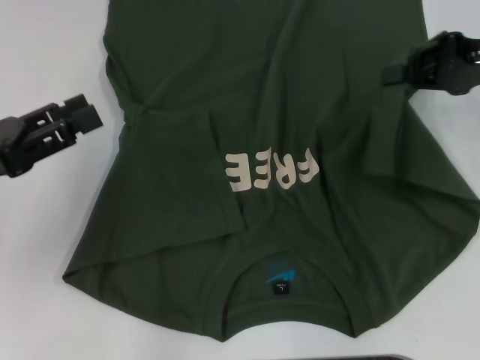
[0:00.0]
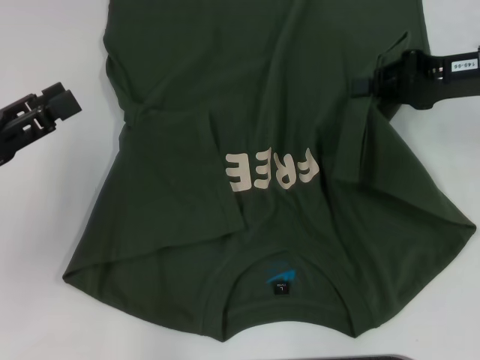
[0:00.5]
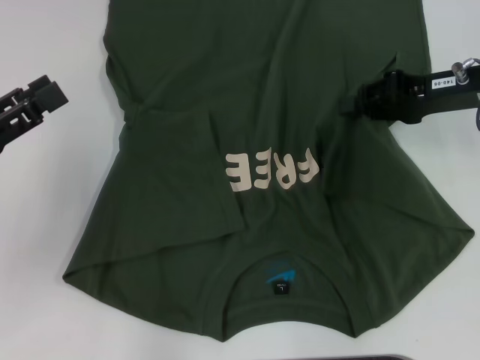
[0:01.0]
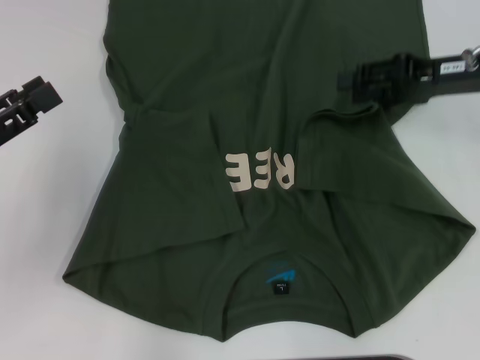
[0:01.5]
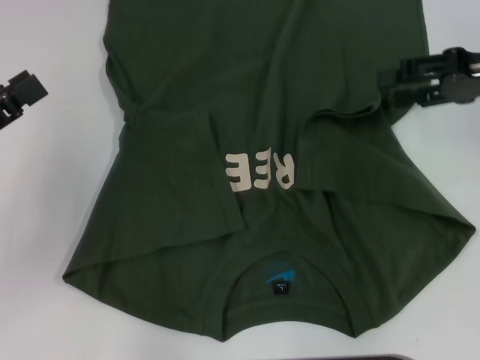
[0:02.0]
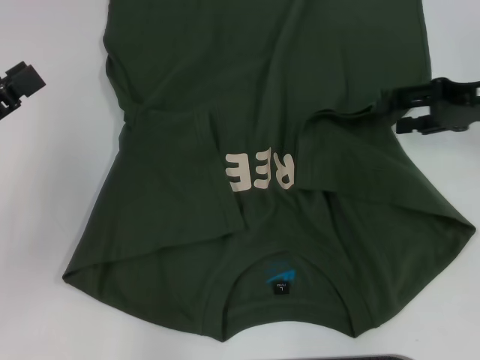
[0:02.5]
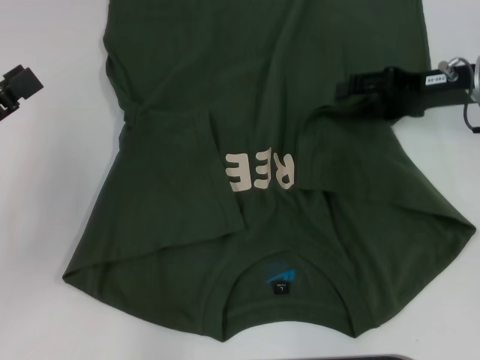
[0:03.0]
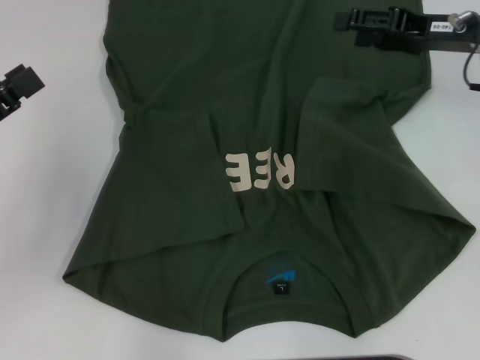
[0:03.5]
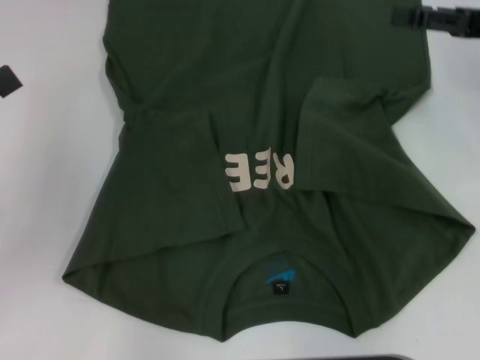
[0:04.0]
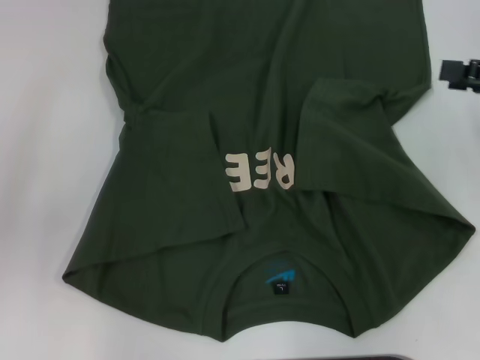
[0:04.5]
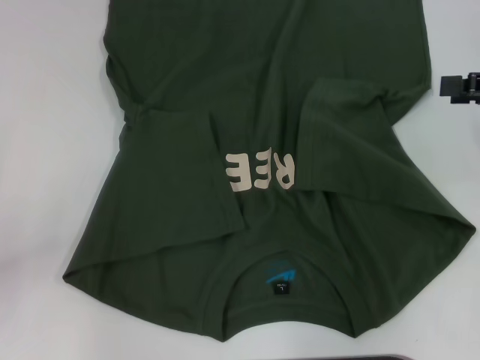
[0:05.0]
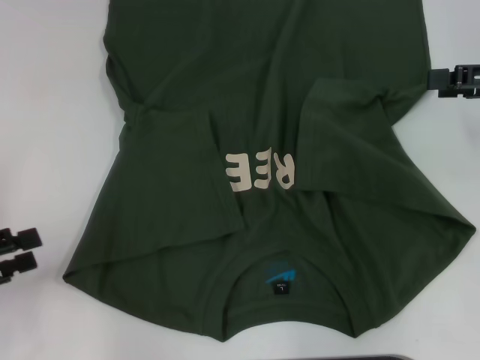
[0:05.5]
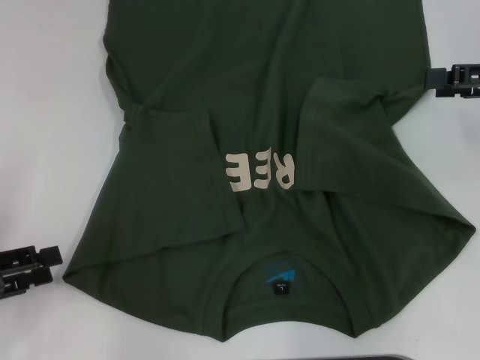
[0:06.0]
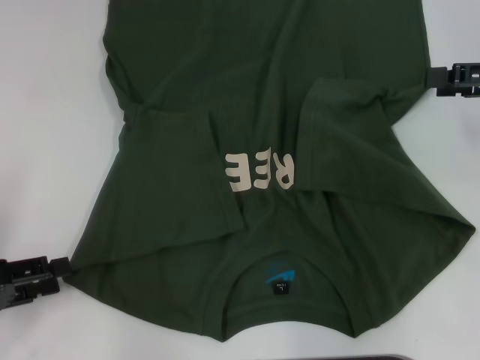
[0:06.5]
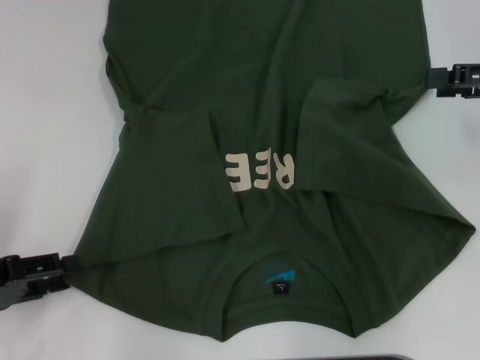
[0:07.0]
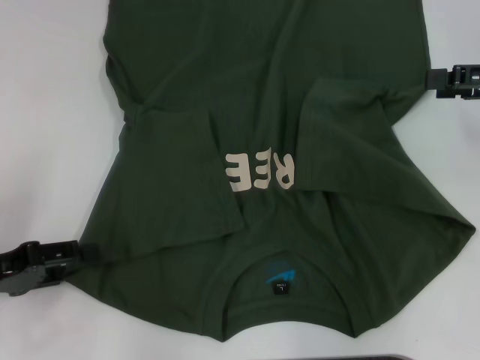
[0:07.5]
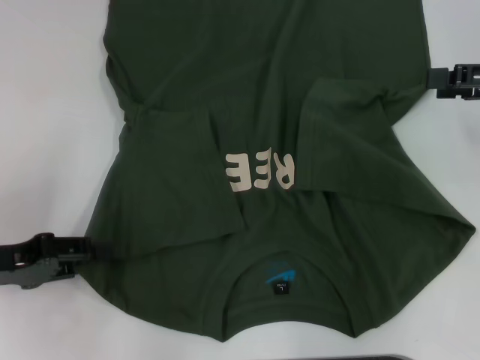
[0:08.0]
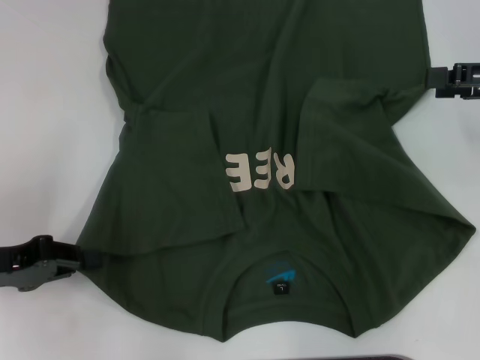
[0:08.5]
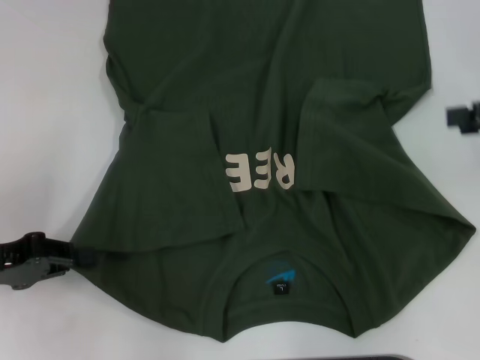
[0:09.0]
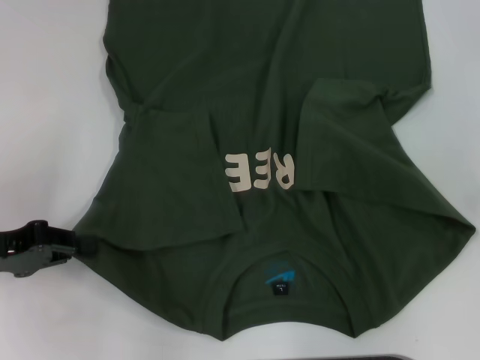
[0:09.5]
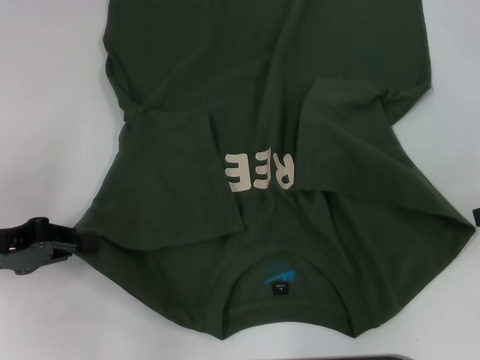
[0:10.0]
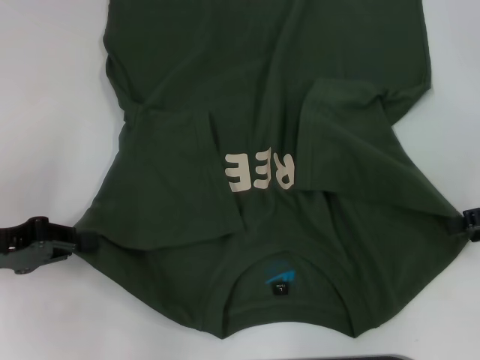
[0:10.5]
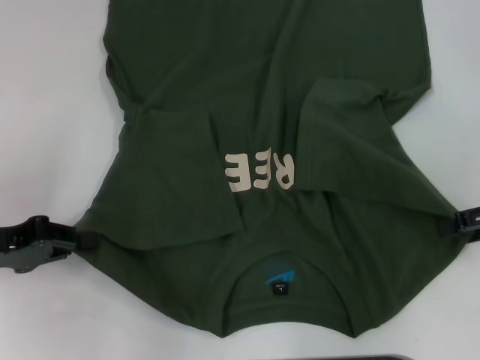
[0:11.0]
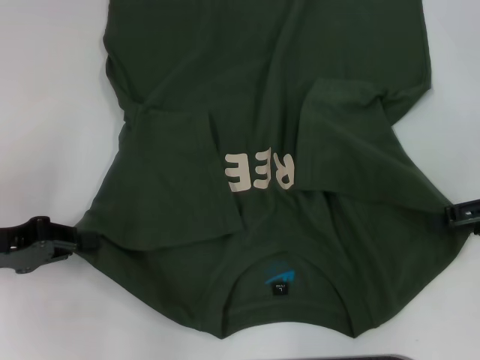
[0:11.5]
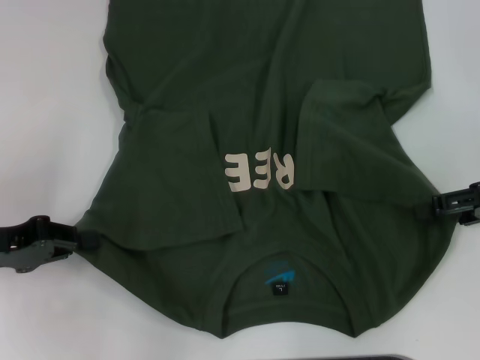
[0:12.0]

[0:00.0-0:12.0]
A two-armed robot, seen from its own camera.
Step, 0:00.0 to 0:03.5: Fold the bottom right sleeve with your right hand.
Step, 0:04.0 to 0:10.5: Grab the bottom left corner with your left hand.
0:00.0 to 0:02.0: The right gripper opens.
0:04.0 to 0:06.0: The left gripper travels downward by roughly 5 cm.
0:06.0 to 0:08.0: The left gripper changes place by about 5 cm.
0:08.0 to 0:10.0: The left gripper closes; the right gripper changes place by approximately 5 cm.
0:10.0 to 0:12.0: The right gripper ends up approximately 5 cm from where it was.

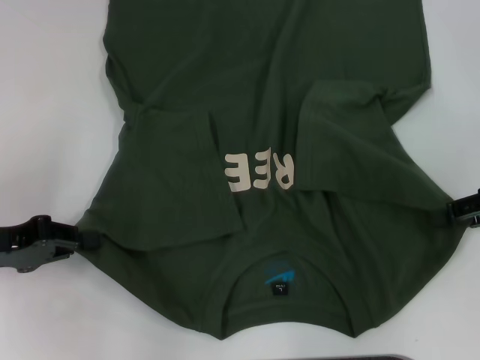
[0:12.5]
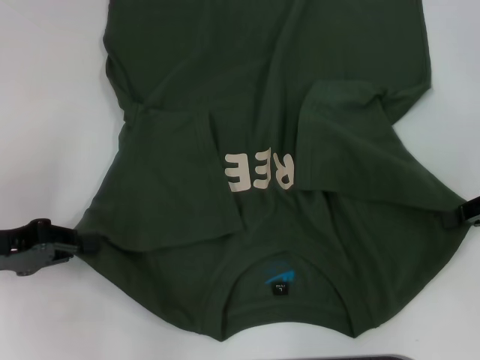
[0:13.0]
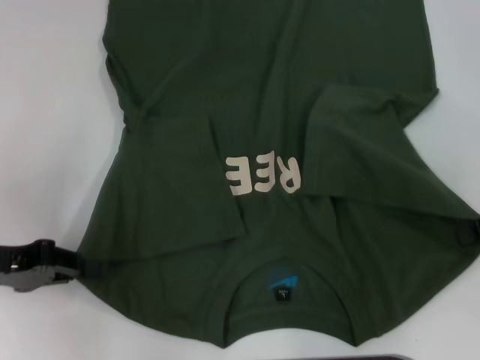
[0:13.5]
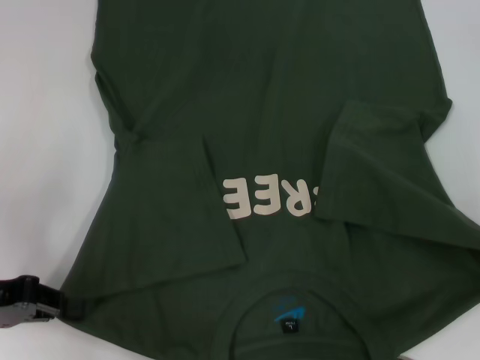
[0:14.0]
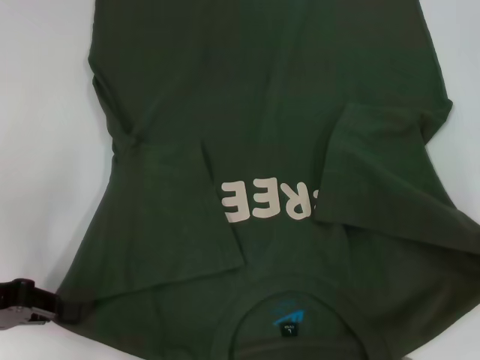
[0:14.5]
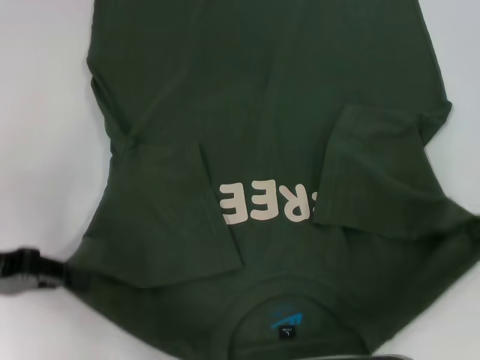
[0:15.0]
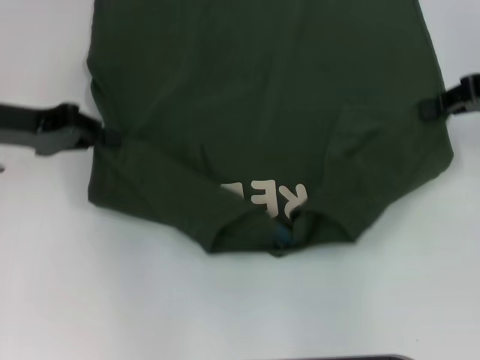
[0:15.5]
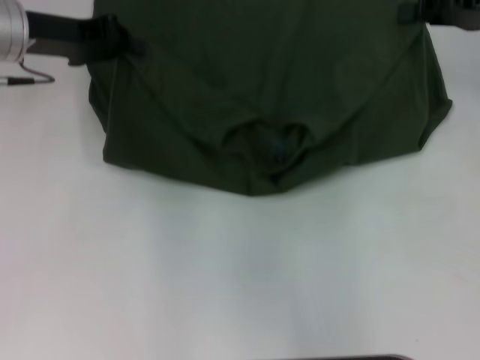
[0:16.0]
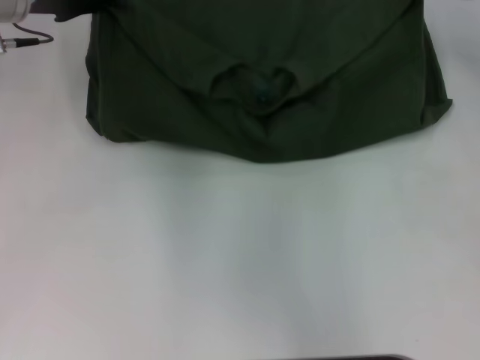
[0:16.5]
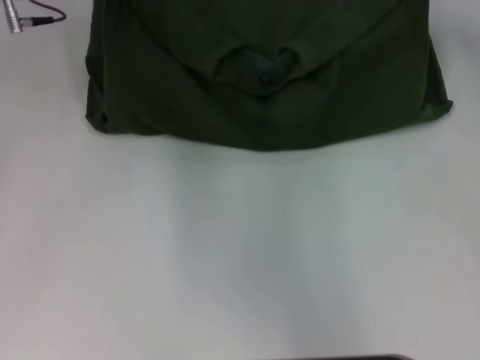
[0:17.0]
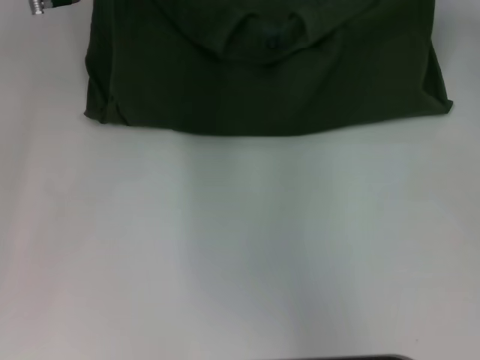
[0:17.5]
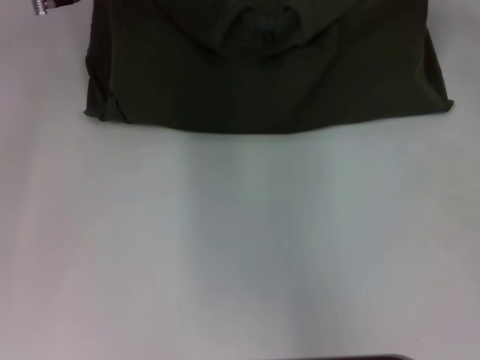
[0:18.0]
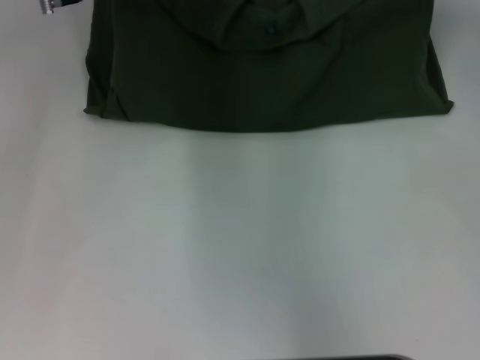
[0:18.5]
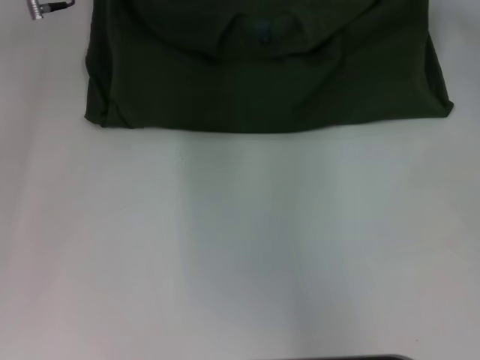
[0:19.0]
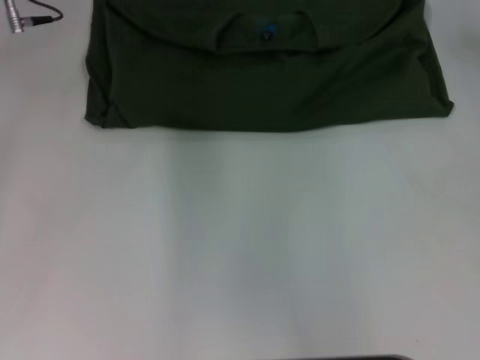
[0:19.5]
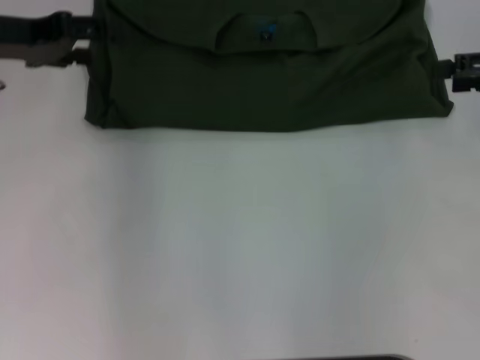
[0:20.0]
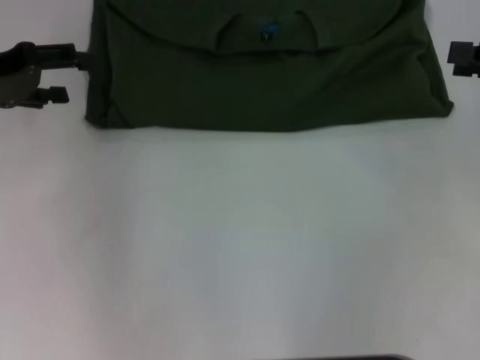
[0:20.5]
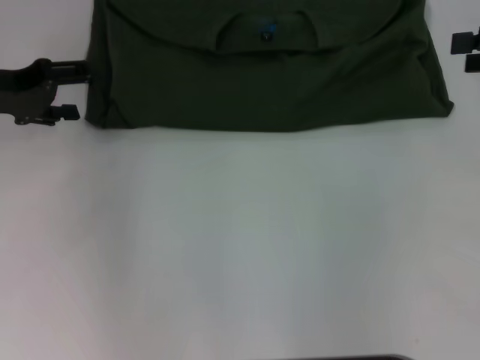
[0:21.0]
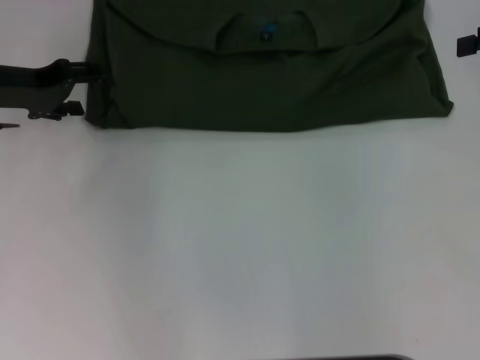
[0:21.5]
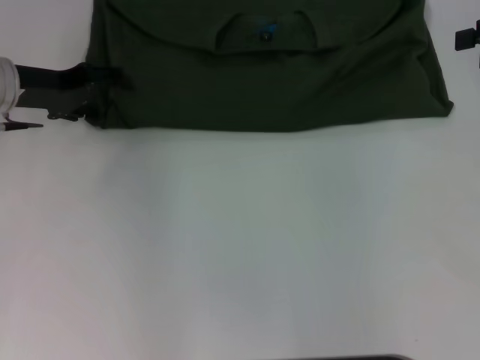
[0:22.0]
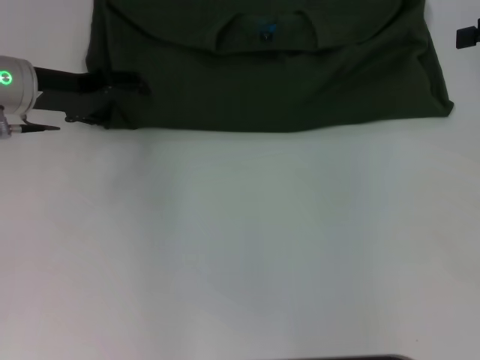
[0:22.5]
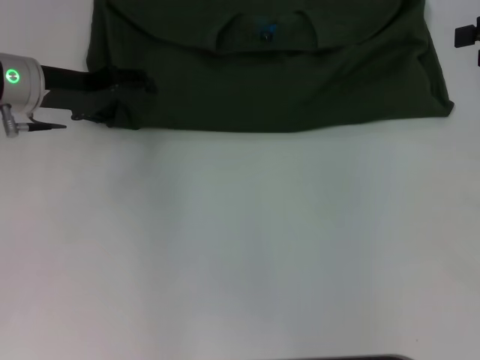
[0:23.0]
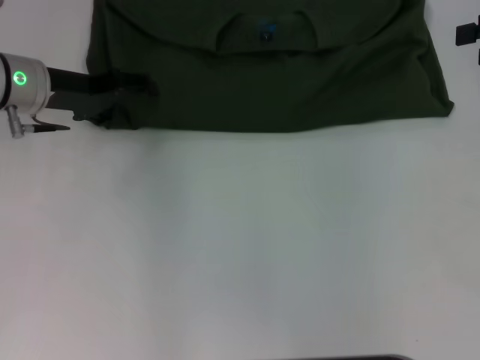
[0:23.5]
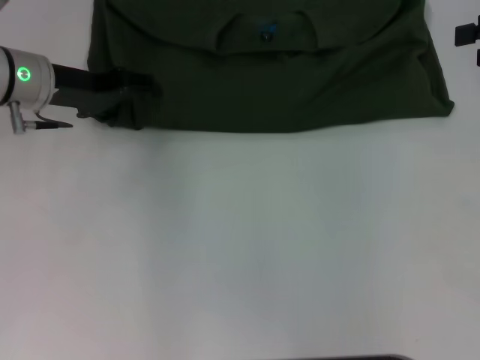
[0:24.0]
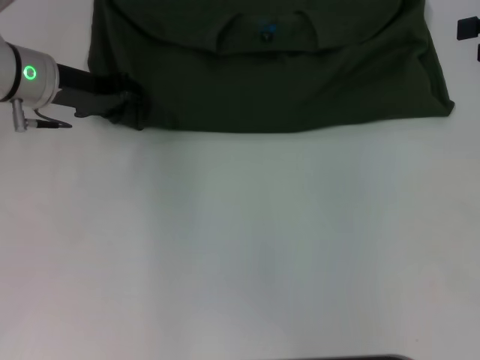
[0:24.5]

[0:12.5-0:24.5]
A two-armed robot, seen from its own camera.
Step, 0:13.5 to 0:19.5: Fold the clothes with your left hand.
Step, 0:13.5 to 0:19.5: Fold the clothes with your right hand.
0:12.5 to 0:14.5: The right gripper closes.
0:14.5 to 0:16.5: The left gripper heads forward and to the right, covering some 25 cm, while the right gripper goes some 15 cm forward, to the left and upward.
0:16.5 to 0:18.5: The left gripper heads to the right, covering some 5 cm.
0:18.5 to 0:20.5: The left gripper heads to the left and backward, covering approximately 15 cm, and opens. The right gripper travels backward and to the right by about 15 cm, and opens.
0:20.5 to 0:22.5: The right gripper shifts approximately 5 cm forward. Meanwhile the left gripper shifts approximately 5 cm to the right.
0:22.5 to 0:24.5: The grippers make only small movements.

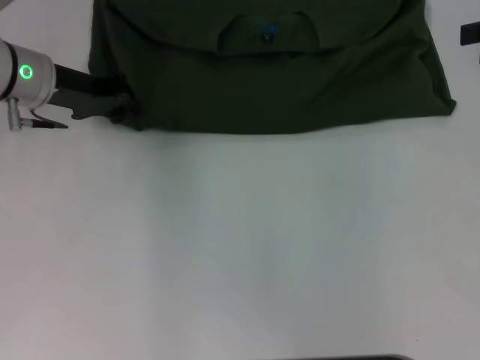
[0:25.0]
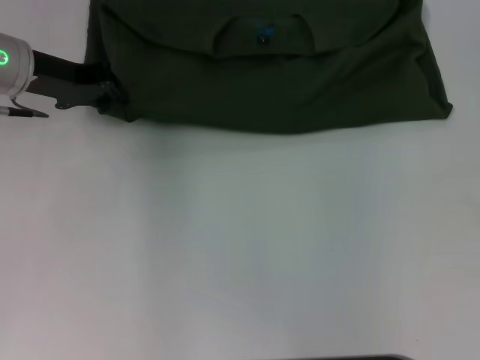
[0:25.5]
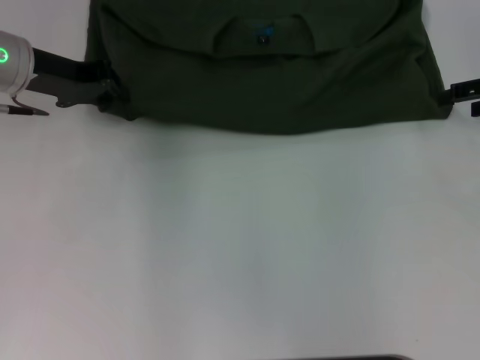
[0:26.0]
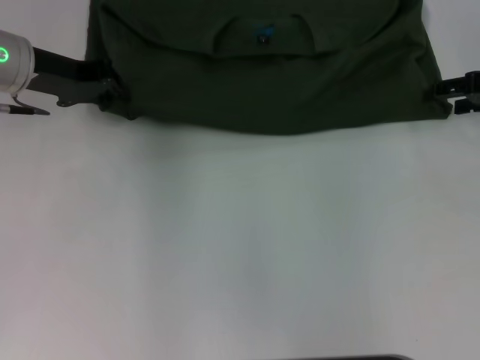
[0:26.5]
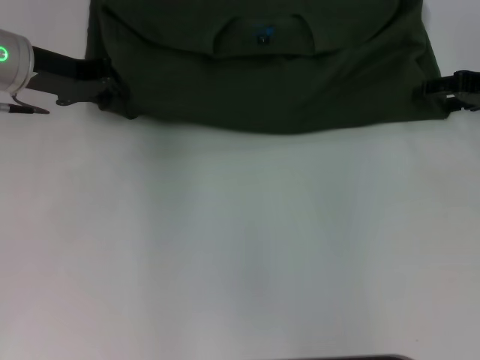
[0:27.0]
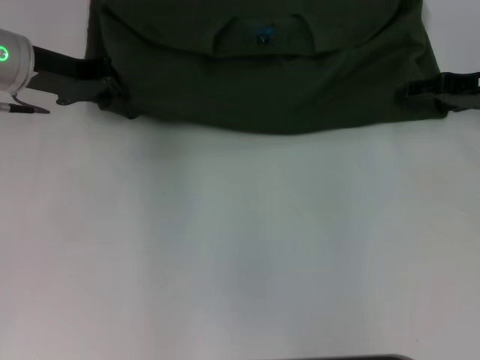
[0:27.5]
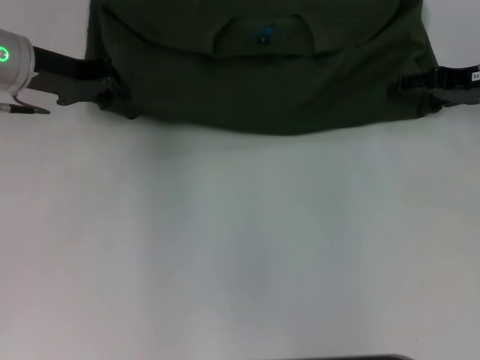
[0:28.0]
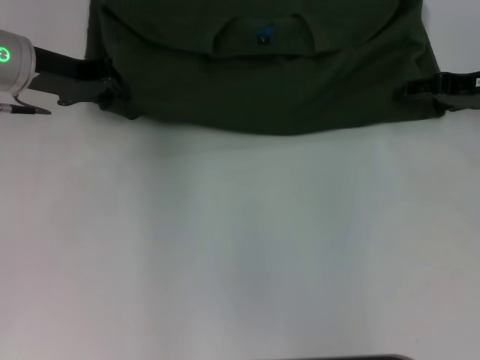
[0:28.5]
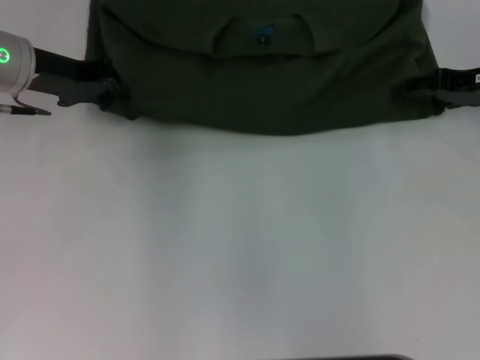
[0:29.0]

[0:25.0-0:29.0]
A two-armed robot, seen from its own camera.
0:25.0 to 0:27.0: The right gripper goes roughly 10 cm downward.
0:27.0 to 0:29.0: The grippers stay close to where they were, moving slightly.
